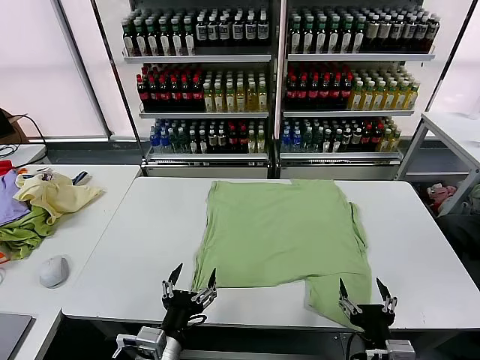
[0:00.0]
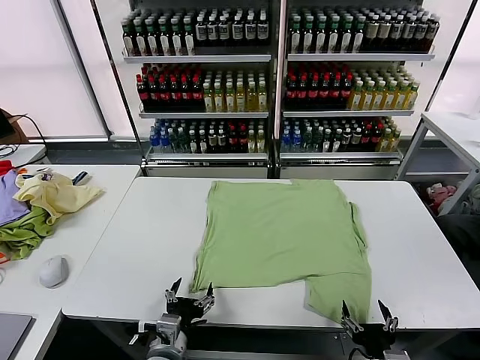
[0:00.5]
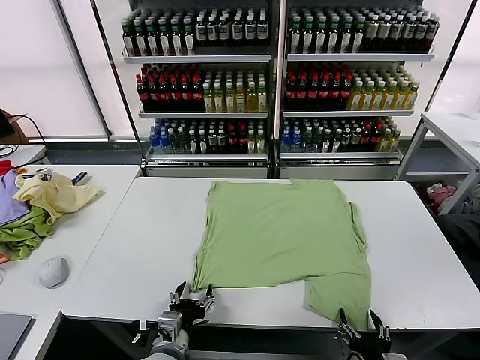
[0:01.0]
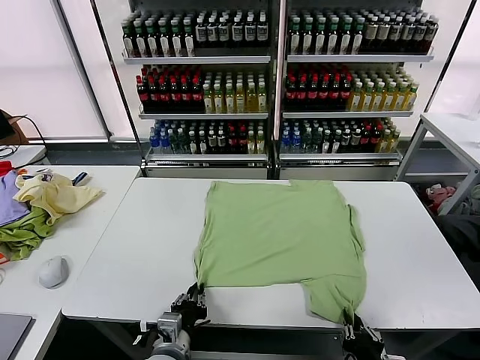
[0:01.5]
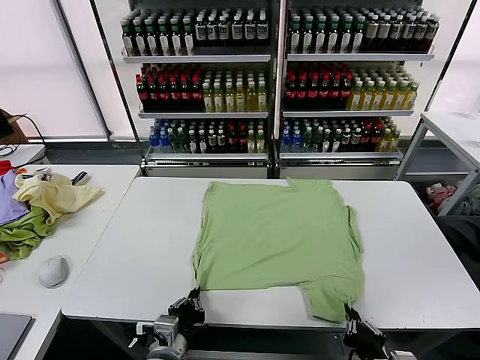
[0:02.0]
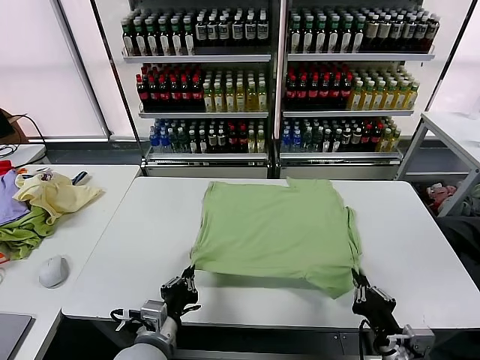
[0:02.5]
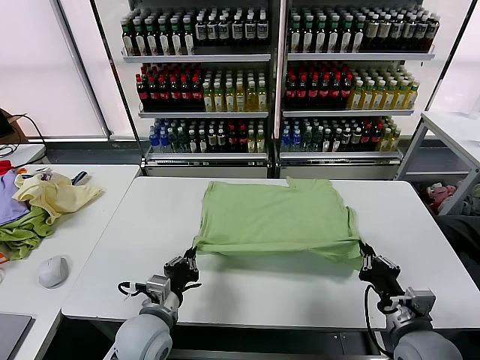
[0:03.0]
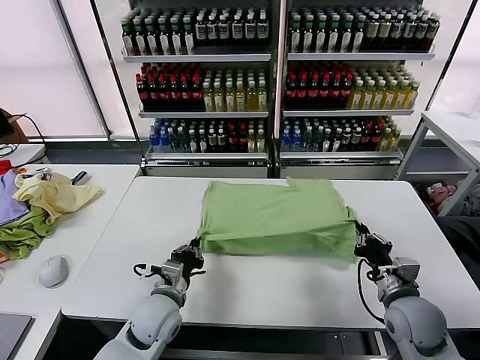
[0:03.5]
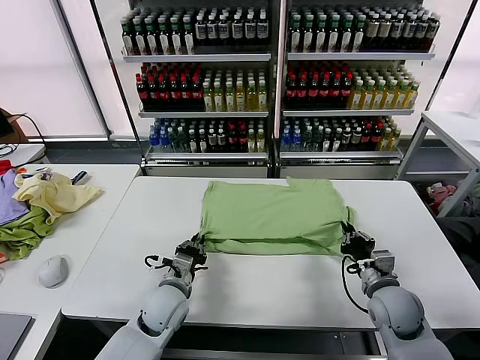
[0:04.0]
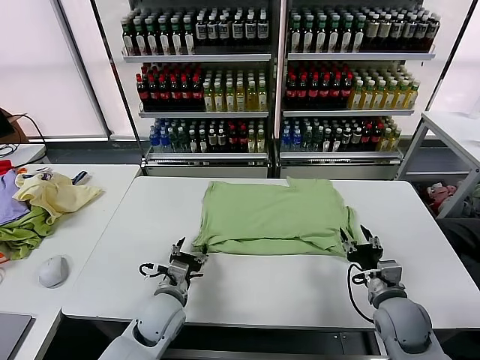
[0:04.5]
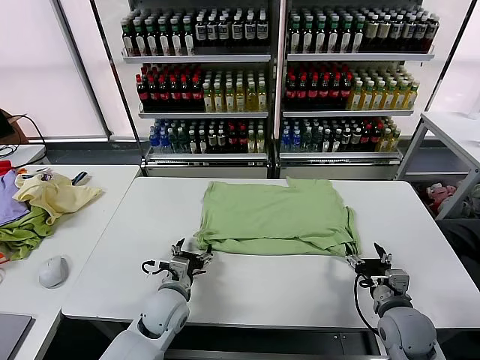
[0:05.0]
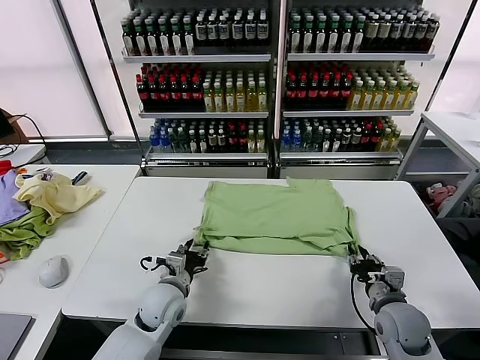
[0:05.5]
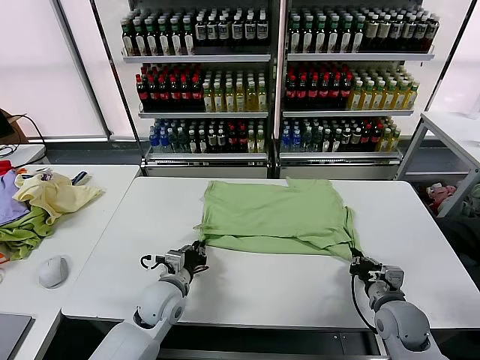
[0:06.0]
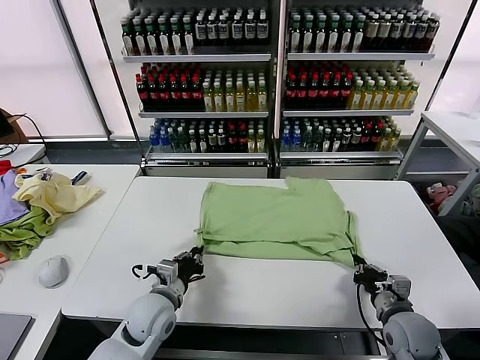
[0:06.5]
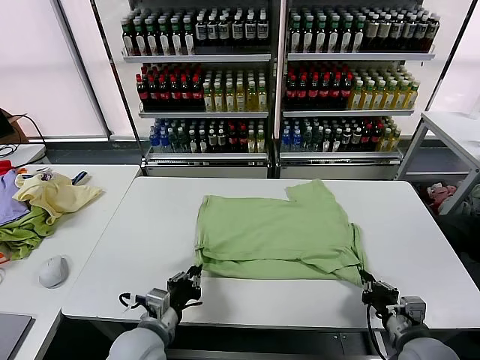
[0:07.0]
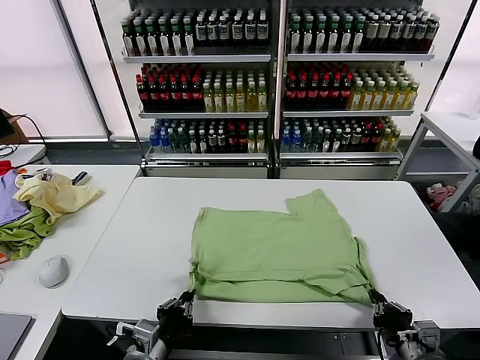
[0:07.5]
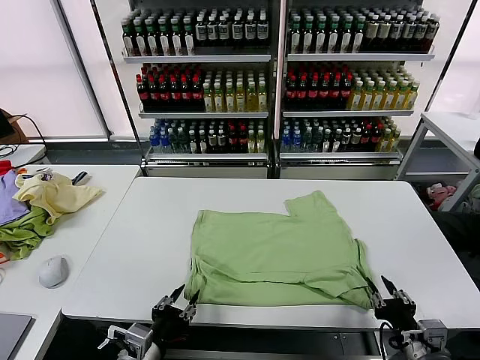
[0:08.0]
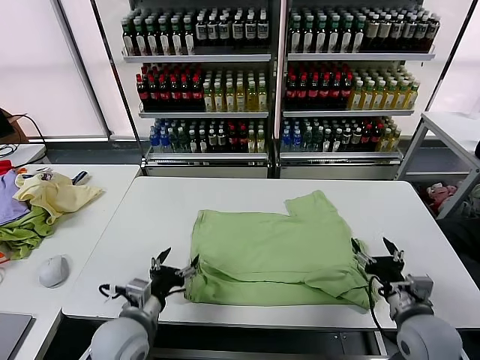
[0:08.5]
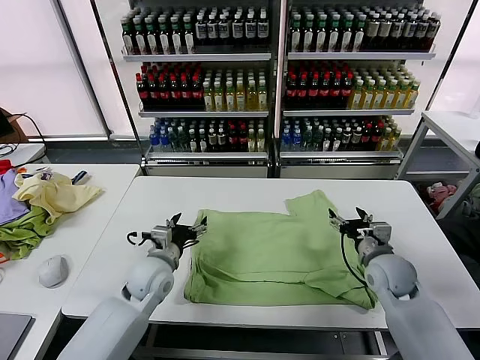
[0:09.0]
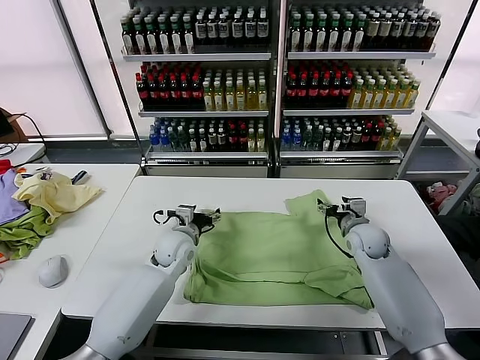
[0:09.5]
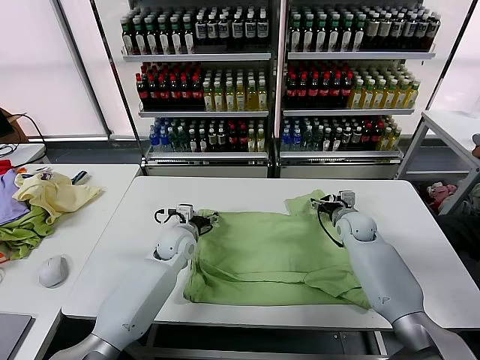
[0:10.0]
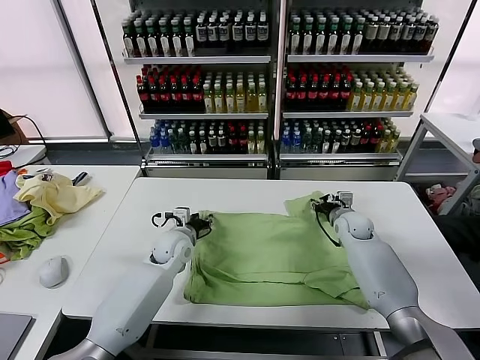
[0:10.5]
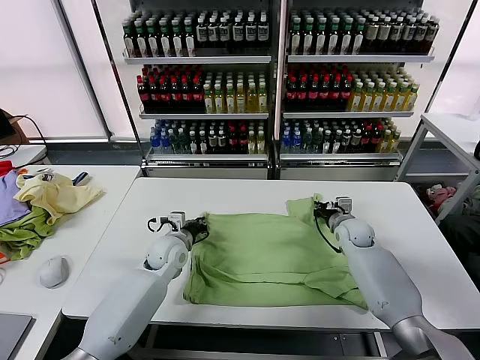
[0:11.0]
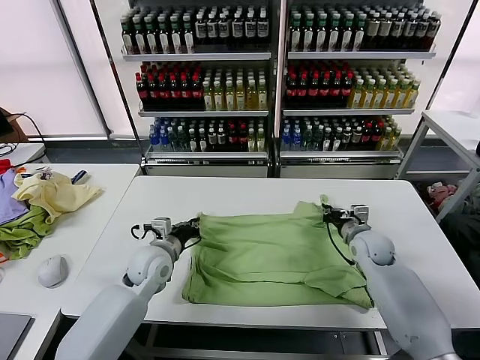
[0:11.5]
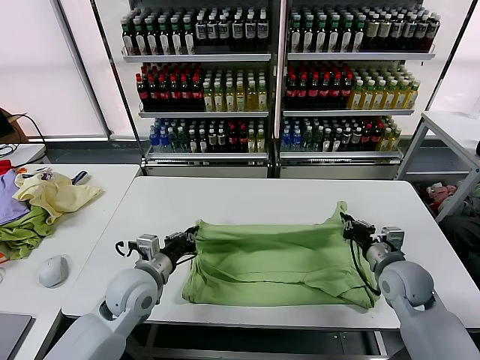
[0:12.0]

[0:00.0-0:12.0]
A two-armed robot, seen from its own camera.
Task of the whole recording: fold and organize the clothes.
Step, 0:00.0 to 0:01.5: use both grippers simultaneously to clamp the lower edge of the clothing fabric.
Step, 0:02.0 to 0:04.0: use both grippers to drag the lower edge of the fabric forward and fold it over the upper edge.
Step, 0:05.0 to 0:08.0: Drag the clothes downward with both gripper.
Step, 0:08.5 to 0:11.0: use both grippers simultaneously to clamp the upper edge of the clothing fabric.
0:02.0 to 0:04.0: Both grippers move forward, approximately 15 cm.
0:04.0 to 0:06.0: The right gripper opens, then closes once more. The left gripper opens, then closes once more.
0:06.0 to 0:08.0: The left gripper heads backward, covering approximately 20 cm. The right gripper is displaced backward and upward by roughly 15 cm, and opens.
0:08.0 to 0:10.0: Both grippers travel together forward, some 35 cm. The left gripper opens, while the right gripper opens its fingers.
0:10.0 to 0:12.0: Both grippers travel together backward, some 15 cm. The right gripper closes up; the left gripper closes.

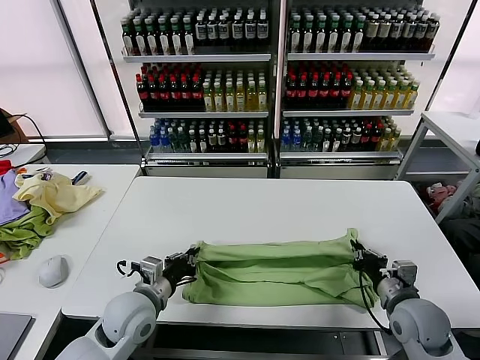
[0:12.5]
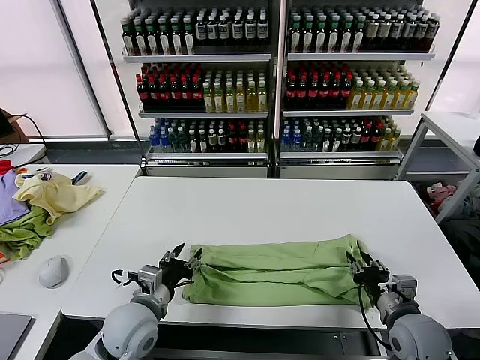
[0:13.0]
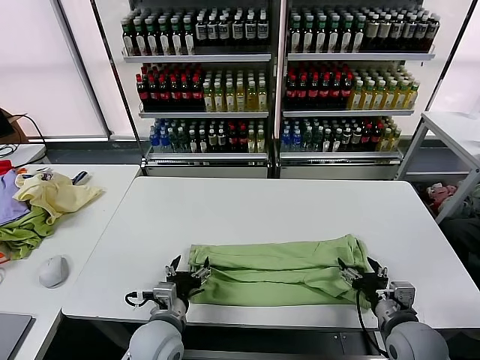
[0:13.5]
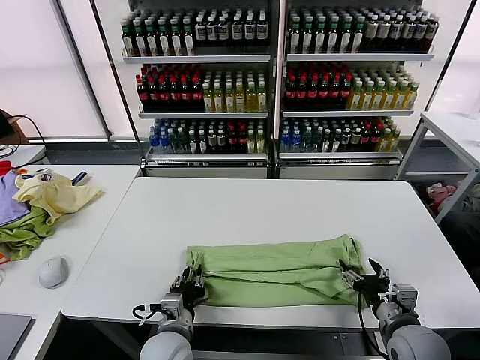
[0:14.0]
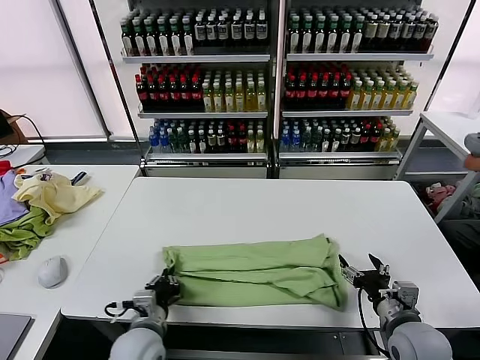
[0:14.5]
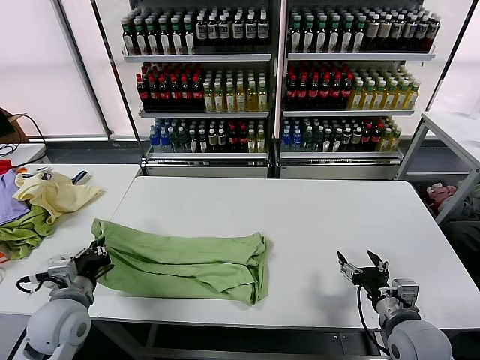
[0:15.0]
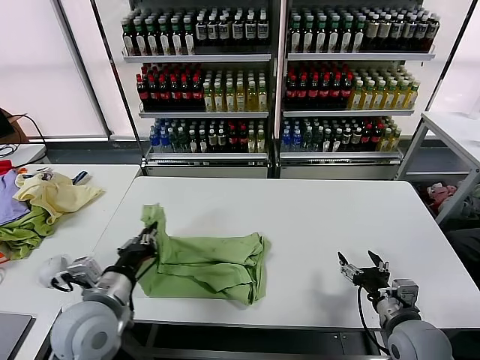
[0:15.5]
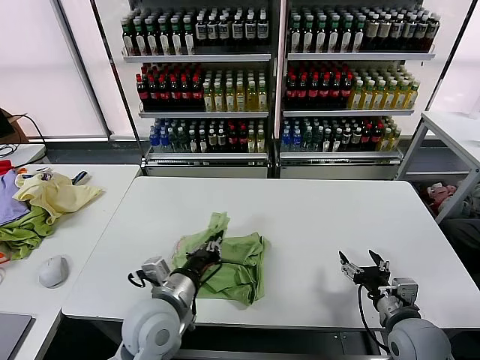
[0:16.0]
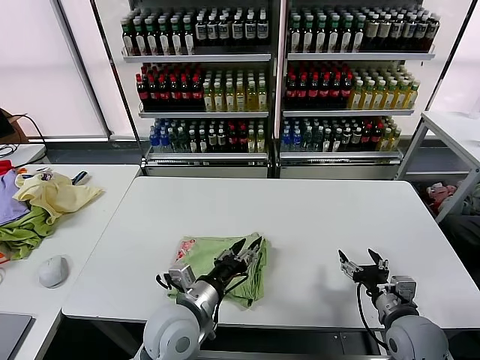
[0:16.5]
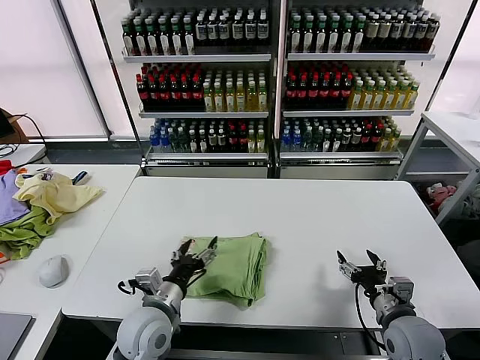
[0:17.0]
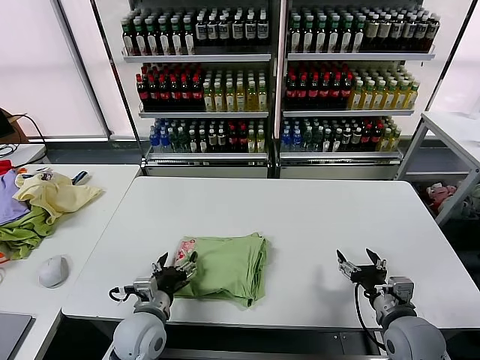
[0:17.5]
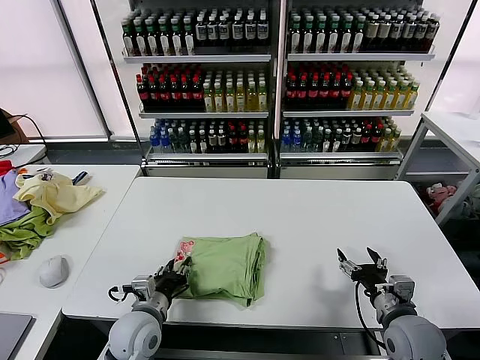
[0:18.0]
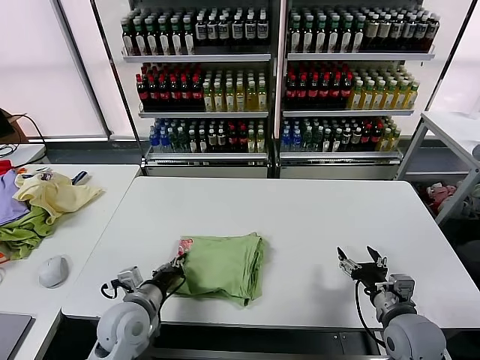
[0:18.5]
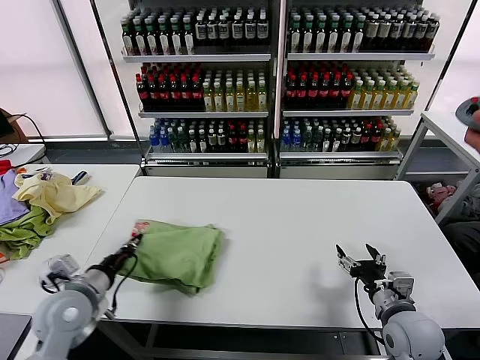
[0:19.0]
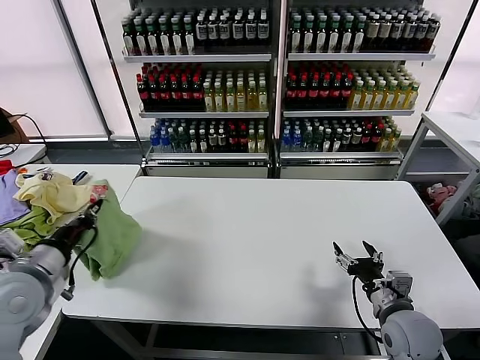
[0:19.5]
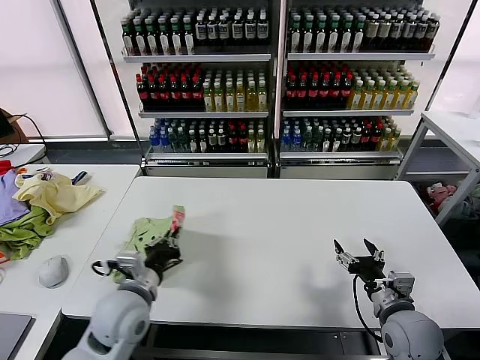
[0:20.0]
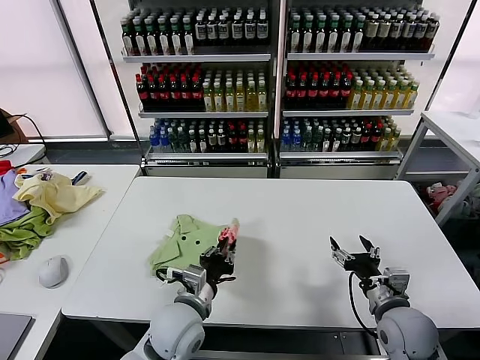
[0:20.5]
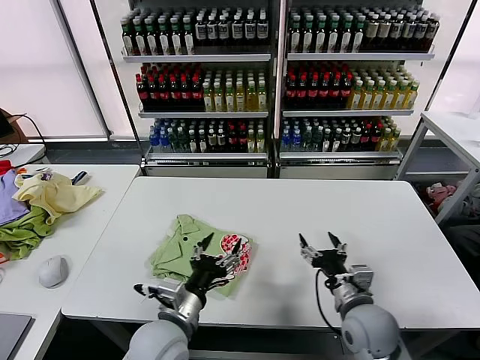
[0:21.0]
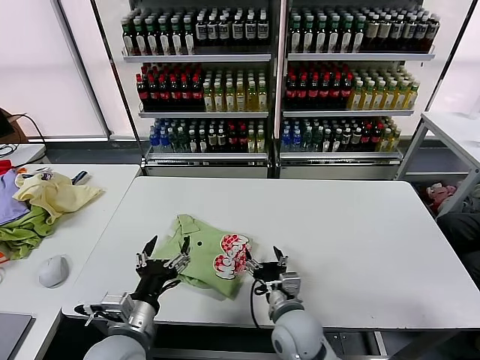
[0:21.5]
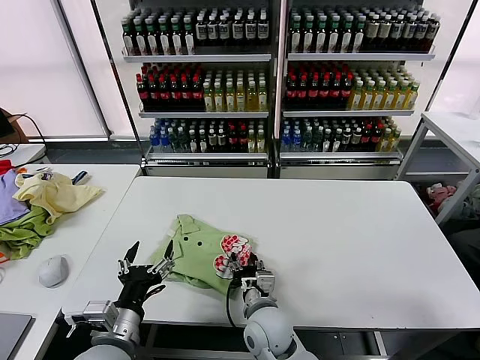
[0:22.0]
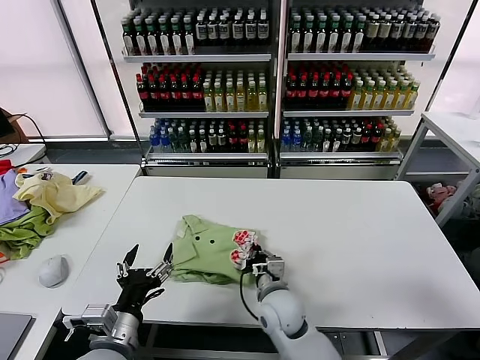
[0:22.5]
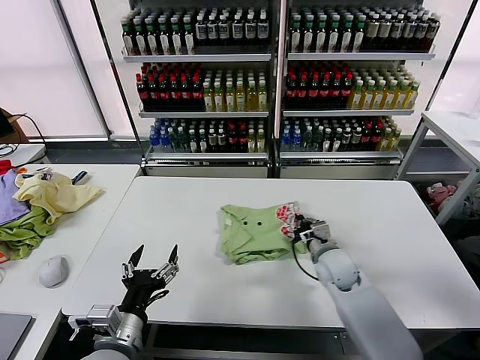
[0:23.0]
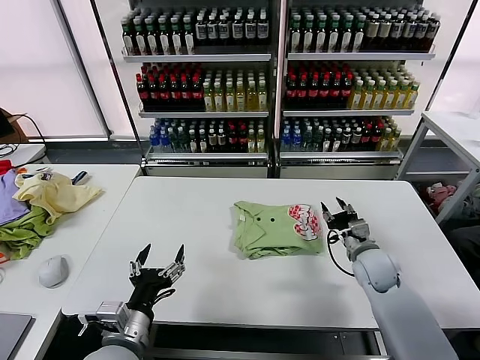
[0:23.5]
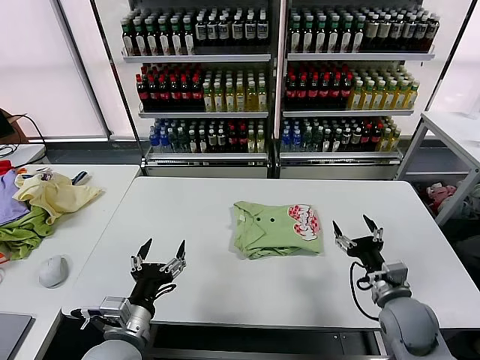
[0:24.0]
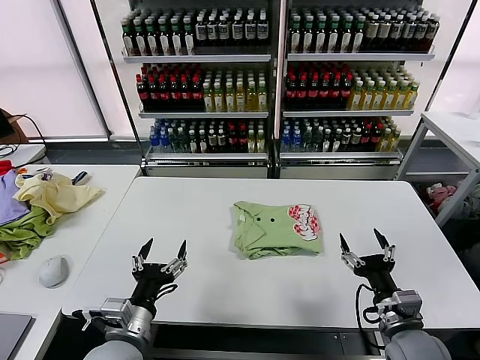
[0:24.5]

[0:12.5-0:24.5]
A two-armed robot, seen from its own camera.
Task of the whole recording: fold and organize the clothes.
Step, 0:13.5 to 0:14.0: use the left gripper to clamp the left edge of the fabric.
Step, 0:14.5 to 0:16.0: use the left gripper to drag the left edge of the fabric to the left and folds it over the right edge.
Step, 0:16.5 to 0:20.5: Flip the folded clothes over with left gripper.
Step, 0:21.0 to 0:23.0: Drag the clothes to the center of the table.
0:12.5 to 0:14.5: The left gripper goes some 10 cm downward and backward, and opens and closes again; the right gripper opens up.
0:14.5 to 0:16.5: The left gripper moves upward, roughly 10 cm, goes to the left and returns, approximately 15 cm each way, and opens.
0:16.5 to 0:18.5: The left gripper moves to the left and downward, roughly 15 cm, and closes.
0:18.5 to 0:20.5: The left gripper is displaced to the right by roughly 10 cm.
0:20.5 to 0:22.5: The right gripper is displaced to the left by about 25 cm, and closes its fingers; the left gripper travels to the left and backward by approximately 15 cm, and opens up.
0:22.5 to 0:24.5: The right gripper goes roughly 25 cm to the right, and opens its fingers.

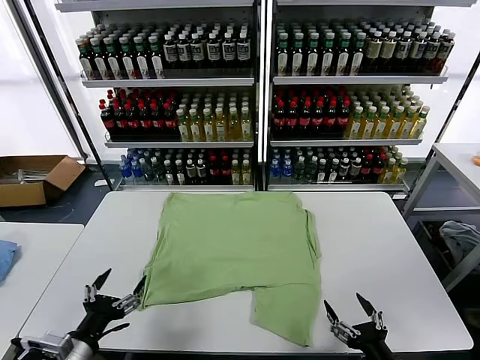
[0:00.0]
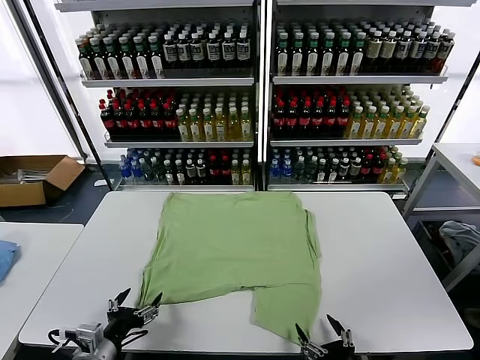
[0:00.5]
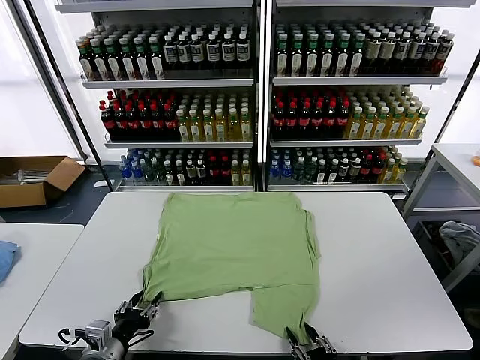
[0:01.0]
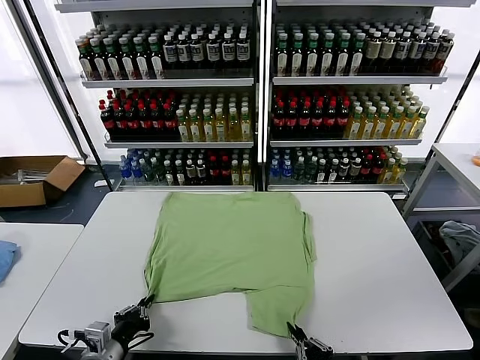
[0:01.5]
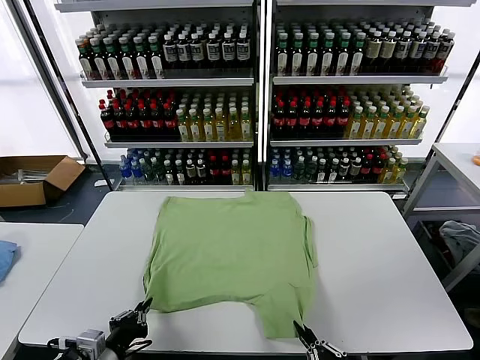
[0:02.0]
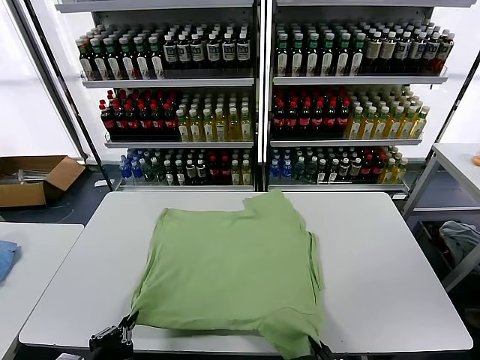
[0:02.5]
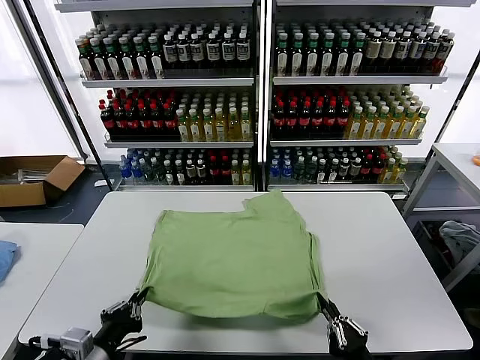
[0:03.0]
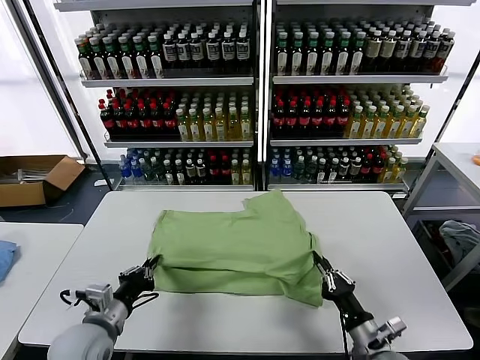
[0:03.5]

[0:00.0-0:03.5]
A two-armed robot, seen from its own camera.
Task of the whole recording: fold and organize the clothes.
Step, 0:00.0 to 0:01.5: use both grippers simultaneously to clamp the lower edge of the clothing fabric.
0:02.0 to 0:03.5: The right gripper goes roughly 20 cm forward; the left gripper shifts roughly 10 cm forward.
